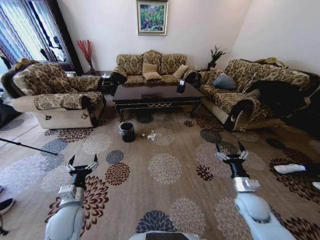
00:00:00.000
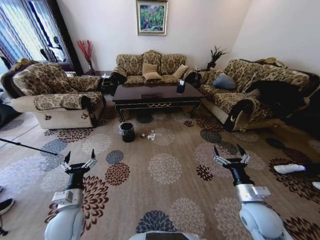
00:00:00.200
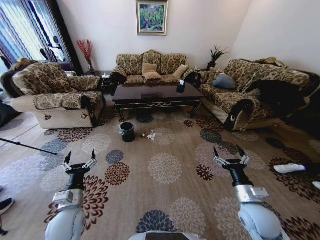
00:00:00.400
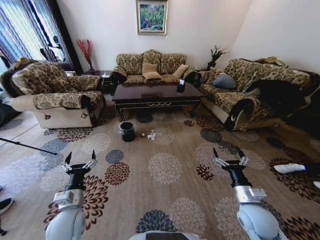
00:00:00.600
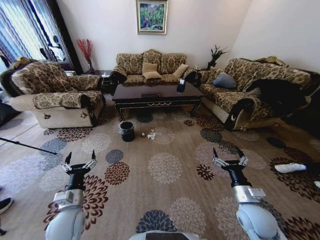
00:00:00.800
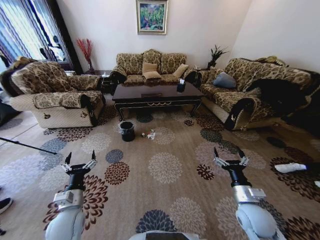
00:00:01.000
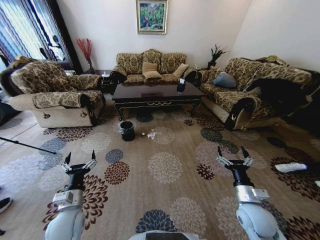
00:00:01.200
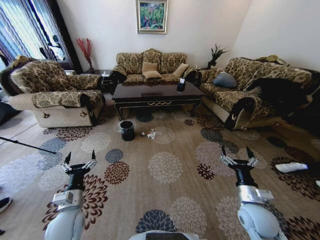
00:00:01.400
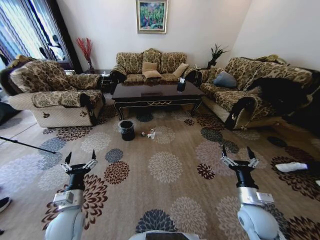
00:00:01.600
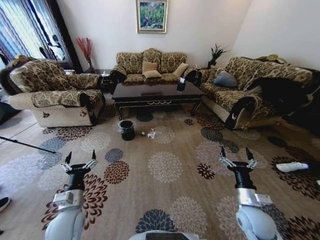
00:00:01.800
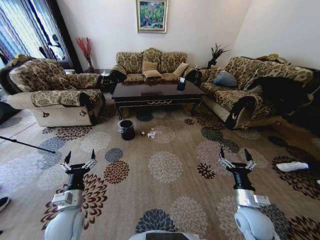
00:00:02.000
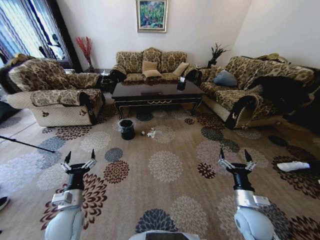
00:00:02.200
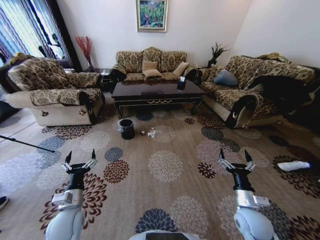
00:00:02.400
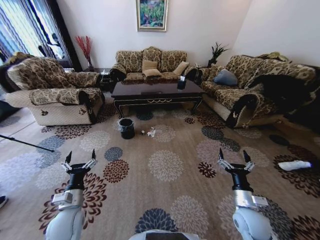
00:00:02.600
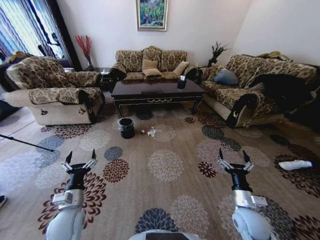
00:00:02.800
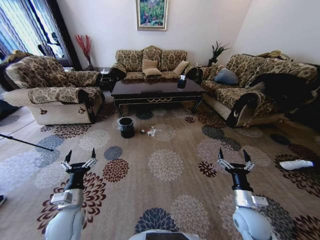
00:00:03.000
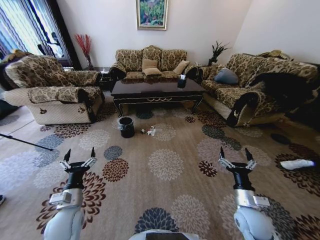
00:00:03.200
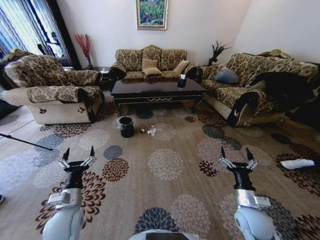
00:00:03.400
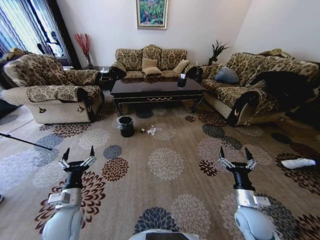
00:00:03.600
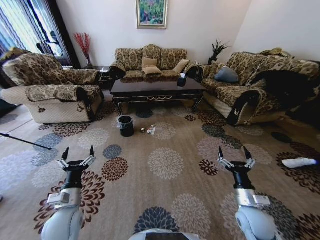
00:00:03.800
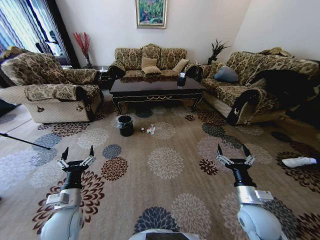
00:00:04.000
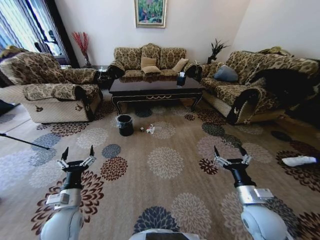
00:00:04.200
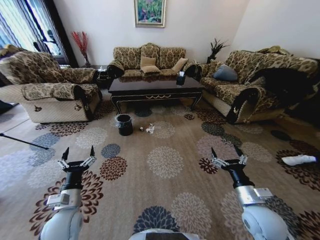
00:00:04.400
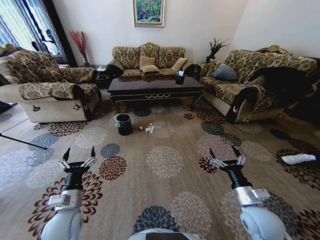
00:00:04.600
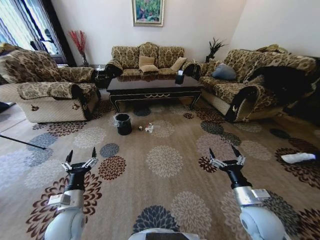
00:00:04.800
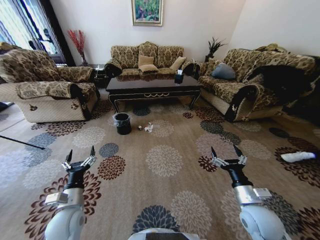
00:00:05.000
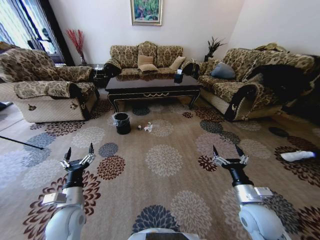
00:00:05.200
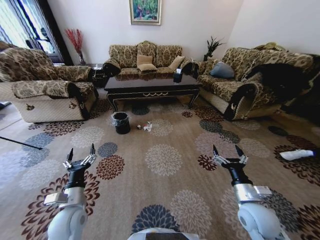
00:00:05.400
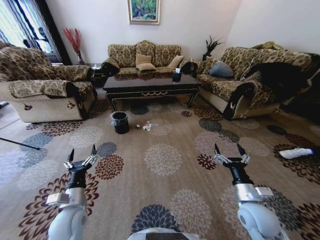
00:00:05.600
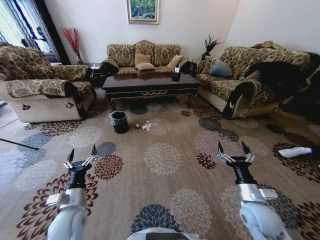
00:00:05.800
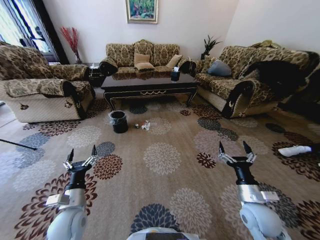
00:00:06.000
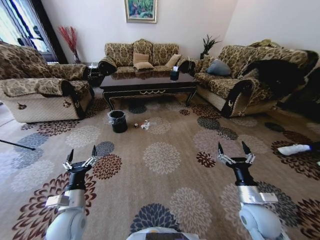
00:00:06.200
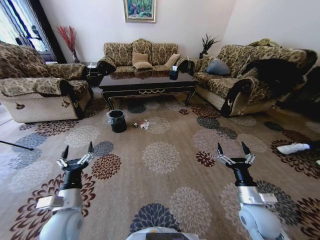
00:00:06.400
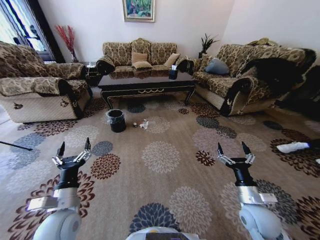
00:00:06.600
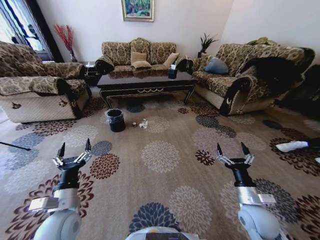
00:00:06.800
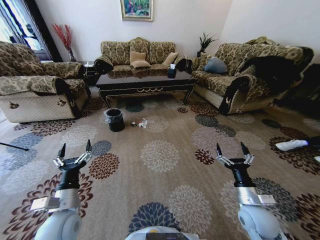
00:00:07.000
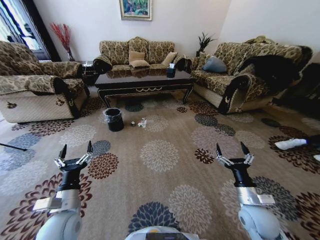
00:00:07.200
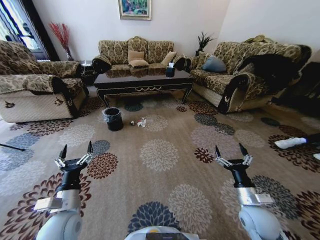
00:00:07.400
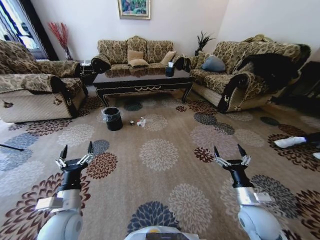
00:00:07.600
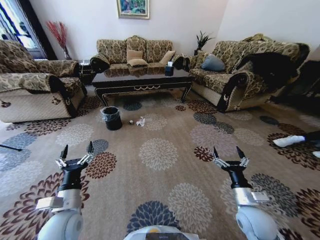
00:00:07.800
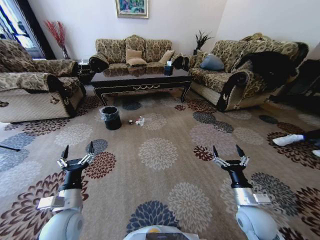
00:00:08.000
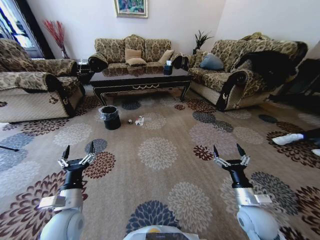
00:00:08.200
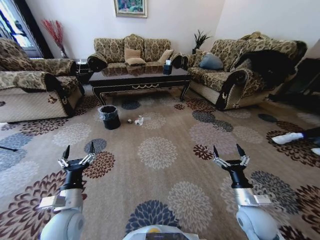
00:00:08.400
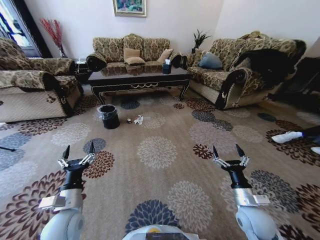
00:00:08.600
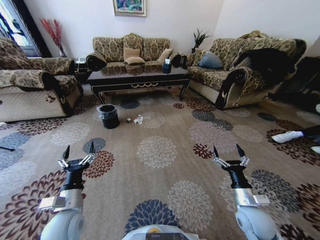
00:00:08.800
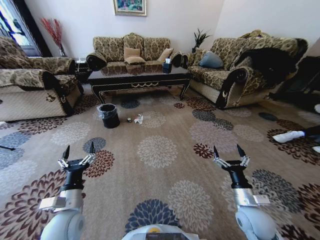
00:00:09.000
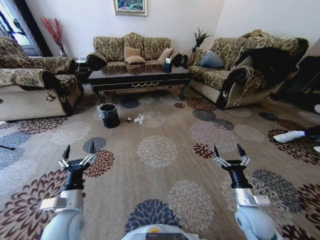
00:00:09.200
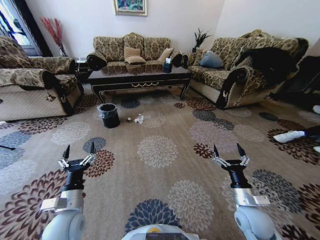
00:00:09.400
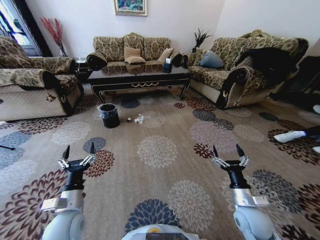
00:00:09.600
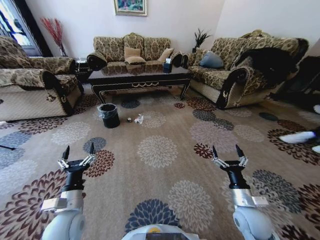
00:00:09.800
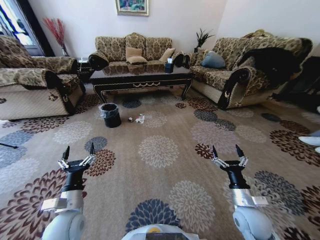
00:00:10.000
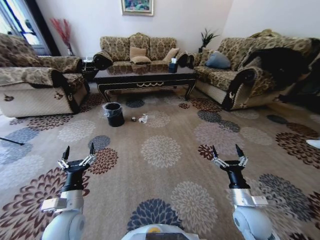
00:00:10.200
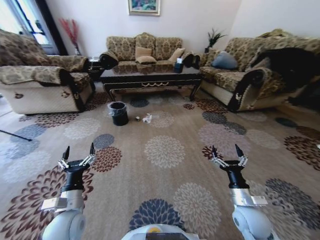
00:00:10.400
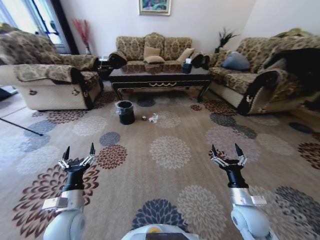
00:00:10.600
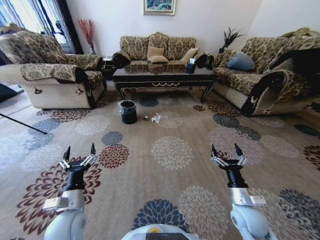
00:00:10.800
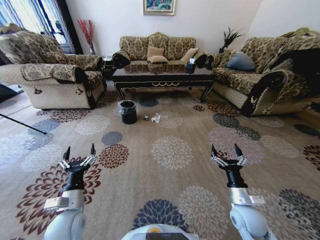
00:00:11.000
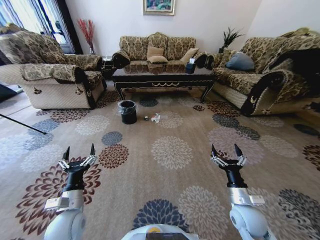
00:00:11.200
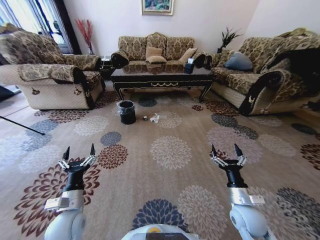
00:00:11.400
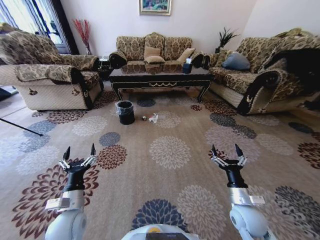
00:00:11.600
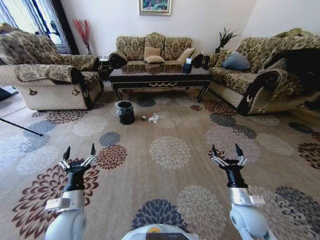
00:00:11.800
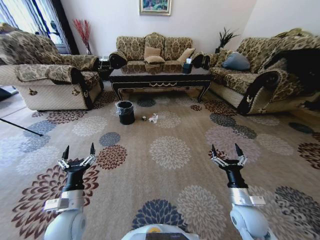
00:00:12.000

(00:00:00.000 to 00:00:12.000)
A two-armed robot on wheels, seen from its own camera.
Task of the whole recording: Move to the front of the table and pick up the trash from the floor, then place it into the trash bin.
00:00:03.000 - 00:00:04.400: The right gripper shifts some 5 cm upward.

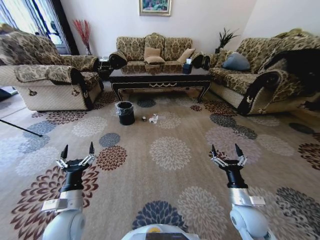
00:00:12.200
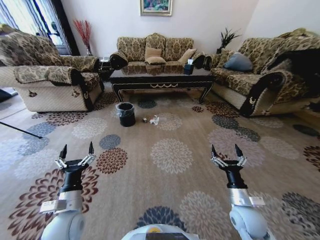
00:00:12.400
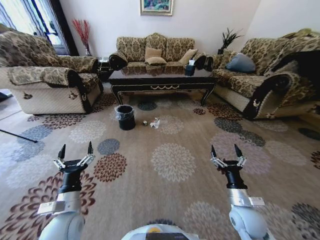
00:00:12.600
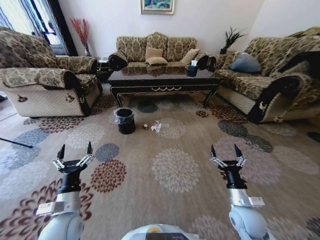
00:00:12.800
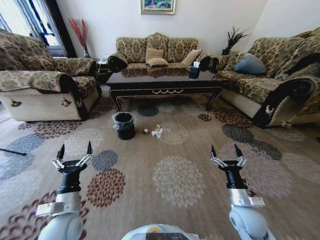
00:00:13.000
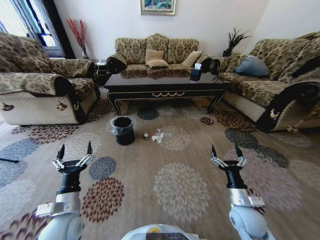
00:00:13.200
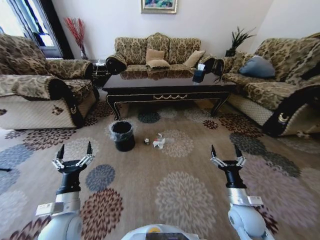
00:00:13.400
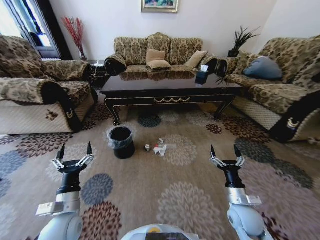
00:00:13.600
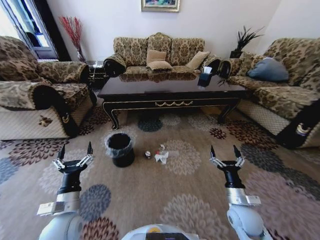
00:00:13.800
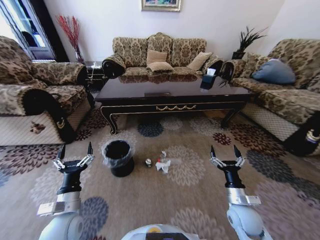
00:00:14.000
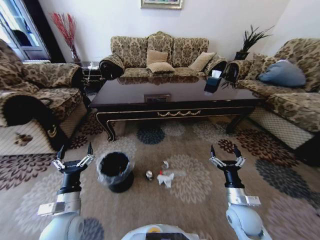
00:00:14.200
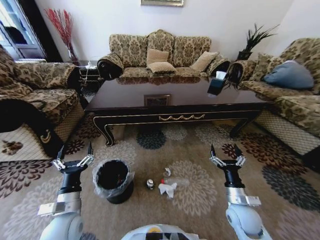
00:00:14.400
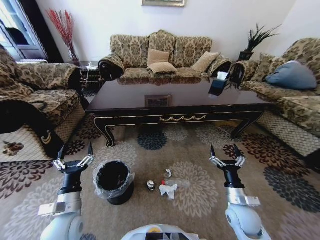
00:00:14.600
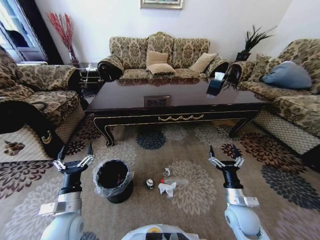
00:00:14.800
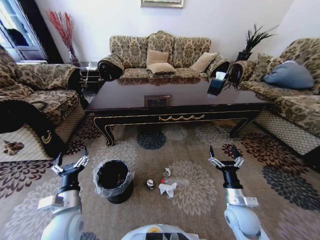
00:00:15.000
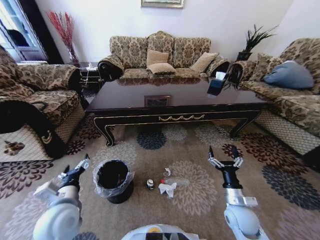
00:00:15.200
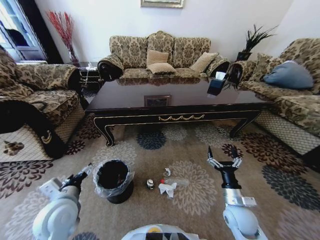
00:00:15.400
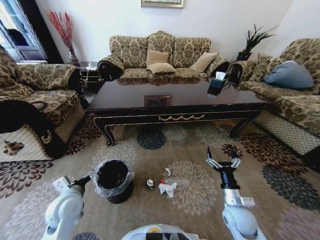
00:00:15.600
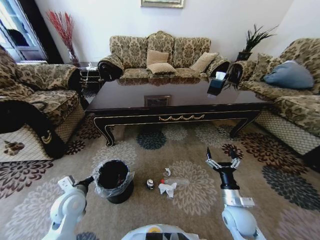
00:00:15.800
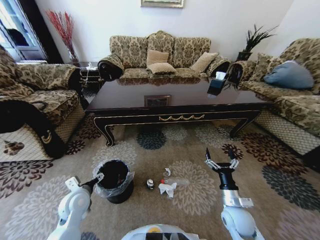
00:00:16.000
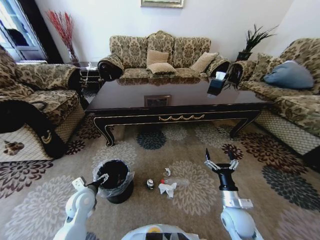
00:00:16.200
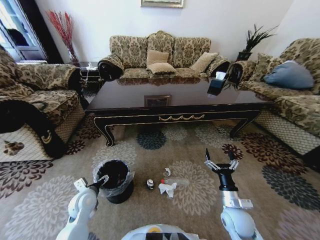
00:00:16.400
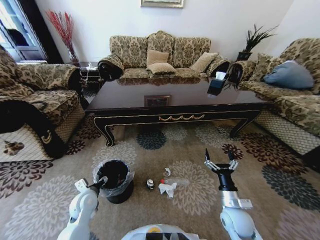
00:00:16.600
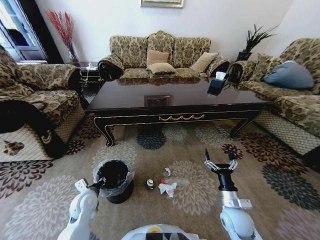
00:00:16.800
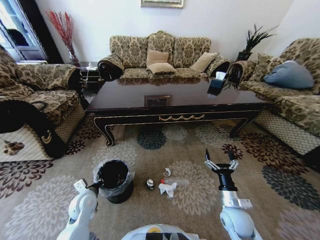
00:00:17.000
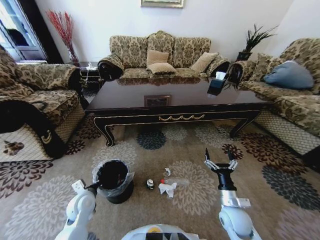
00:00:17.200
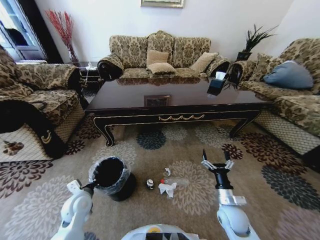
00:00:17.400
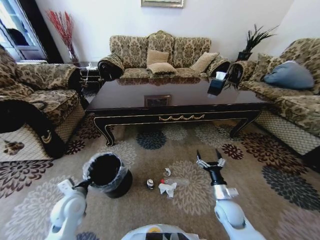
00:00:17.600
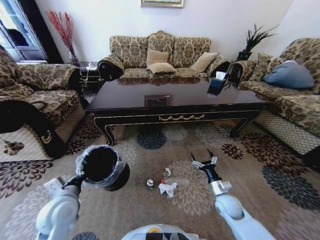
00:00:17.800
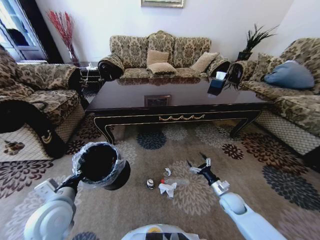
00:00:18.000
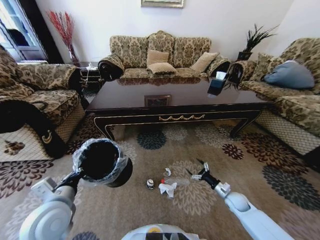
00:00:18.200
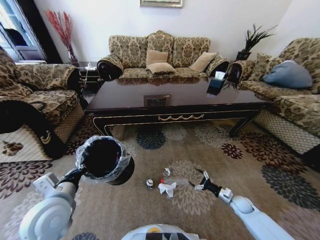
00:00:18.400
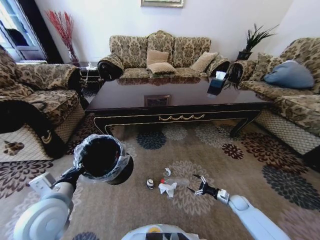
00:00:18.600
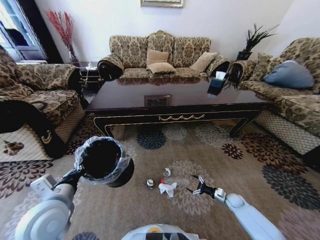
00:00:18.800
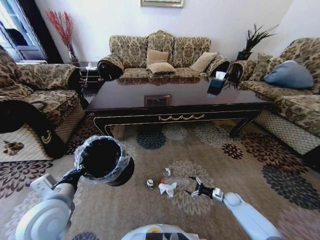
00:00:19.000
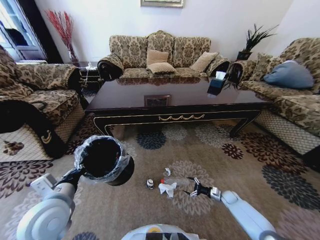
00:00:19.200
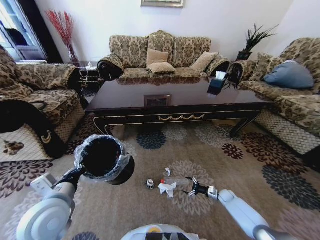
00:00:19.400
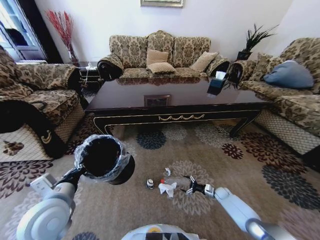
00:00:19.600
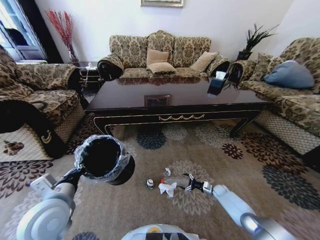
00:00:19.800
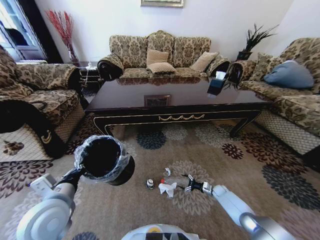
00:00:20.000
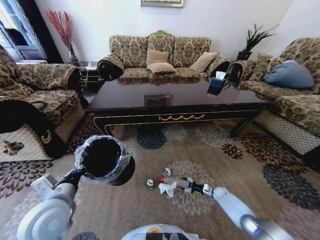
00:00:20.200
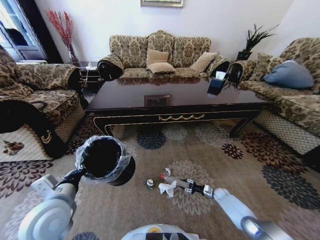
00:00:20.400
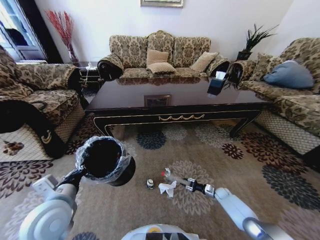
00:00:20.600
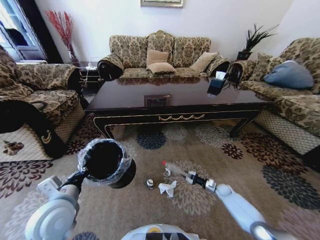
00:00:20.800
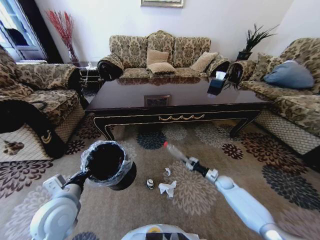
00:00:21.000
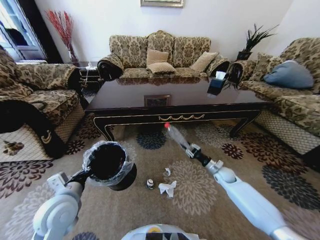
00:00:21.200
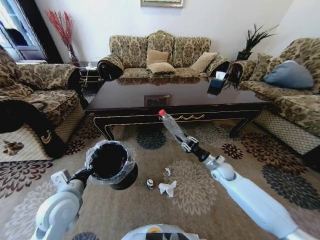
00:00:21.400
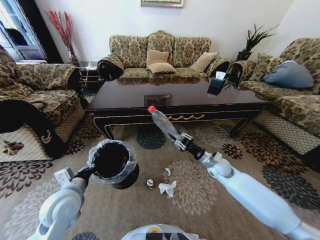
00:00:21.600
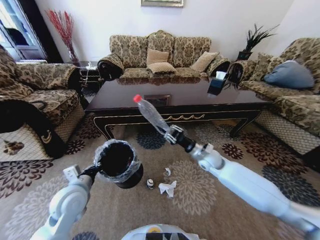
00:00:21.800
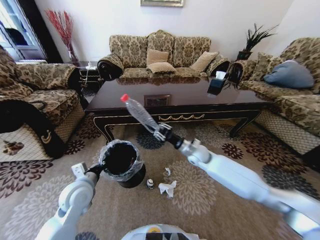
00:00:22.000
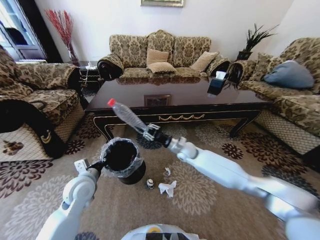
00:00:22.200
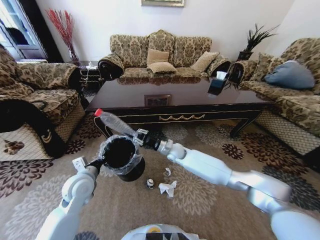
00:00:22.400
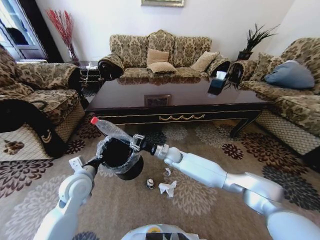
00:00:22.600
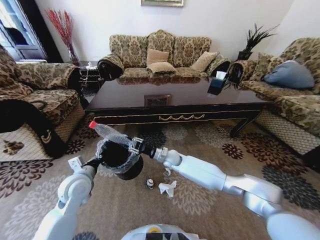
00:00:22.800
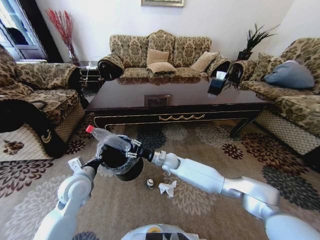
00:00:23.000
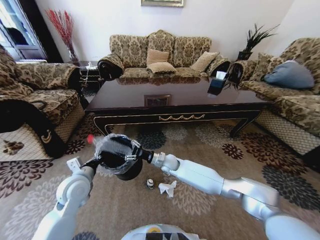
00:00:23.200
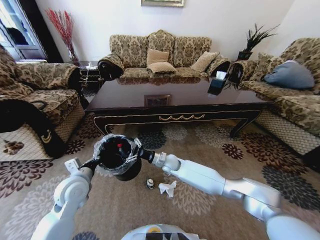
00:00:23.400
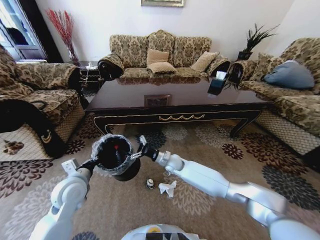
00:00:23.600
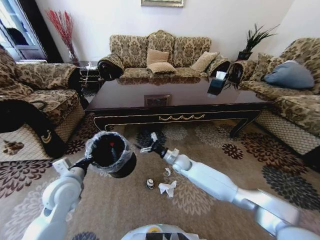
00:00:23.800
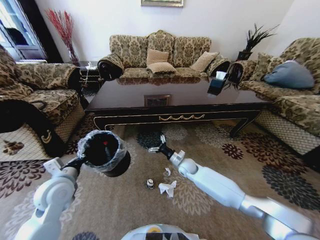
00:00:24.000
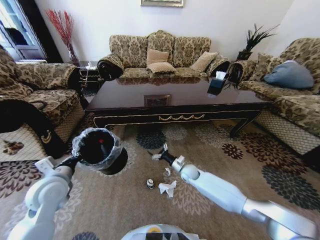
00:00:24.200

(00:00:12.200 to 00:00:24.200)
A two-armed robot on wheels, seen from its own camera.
Task of the whole recording: Move to the front of the table and pick up the trash from the floor, then place it into the trash bin.
00:00:15.200 - 00:00:16.600: The left gripper moves downward and forward, roughly 15 cm.
00:00:16.600 - 00:00:18.200: The right gripper moves to the right, downward and forward, some 20 cm. Meanwhile the left gripper is displaced upward and backward by approximately 15 cm, and closes its fingers.
00:00:18.200 - 00:00:19.800: The right gripper travels downward and forward by about 15 cm.
00:00:19.800 - 00:00:21.200: The right gripper shifts approximately 20 cm upward, and closes.
00:00:21.200 - 00:00:22.600: The right gripper moves to the left, roughly 30 cm. The left gripper moves forward, about 10 cm.
00:00:22.600 - 00:00:24.200: The left gripper travels to the left by roughly 5 cm. Meanwhile the right gripper goes some 15 cm to the right, downward and backward, and opens.
